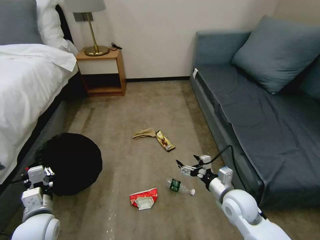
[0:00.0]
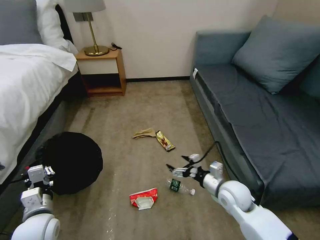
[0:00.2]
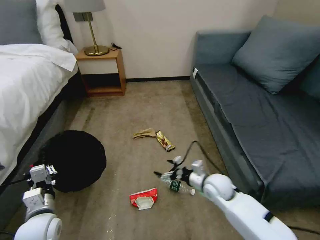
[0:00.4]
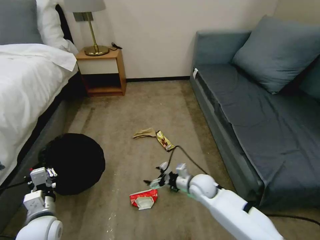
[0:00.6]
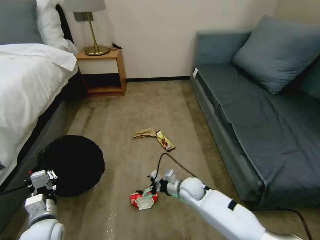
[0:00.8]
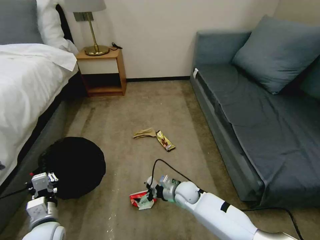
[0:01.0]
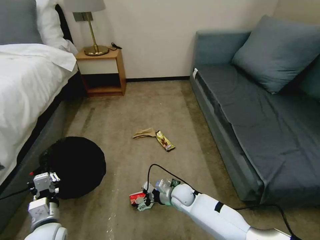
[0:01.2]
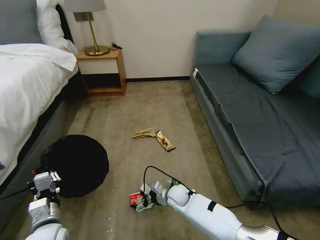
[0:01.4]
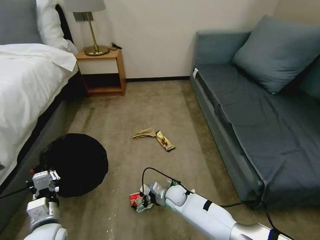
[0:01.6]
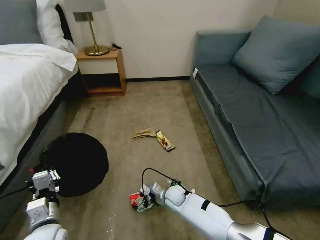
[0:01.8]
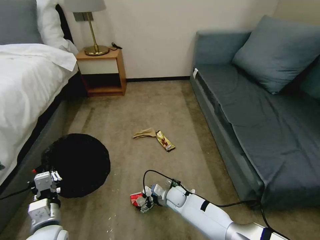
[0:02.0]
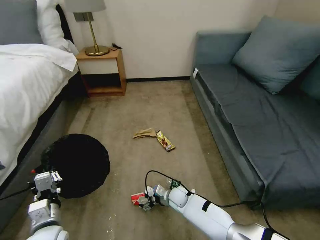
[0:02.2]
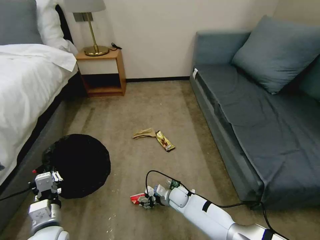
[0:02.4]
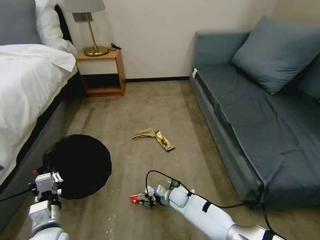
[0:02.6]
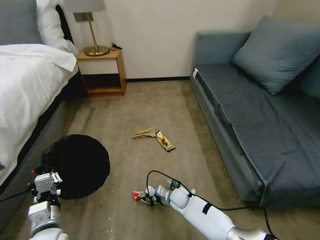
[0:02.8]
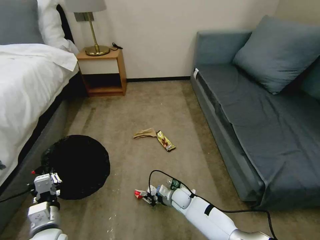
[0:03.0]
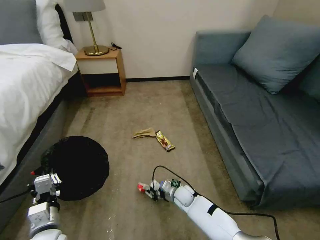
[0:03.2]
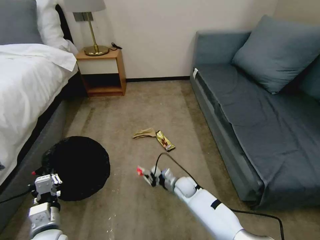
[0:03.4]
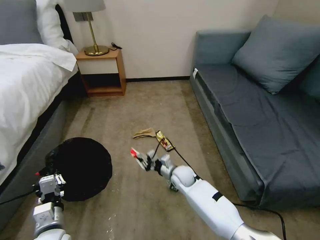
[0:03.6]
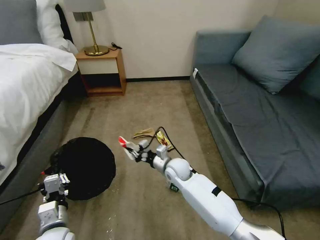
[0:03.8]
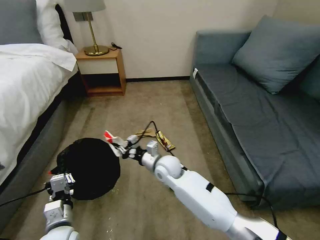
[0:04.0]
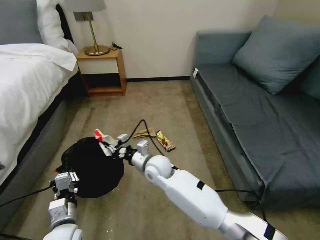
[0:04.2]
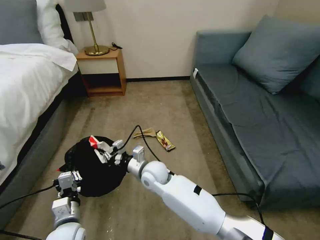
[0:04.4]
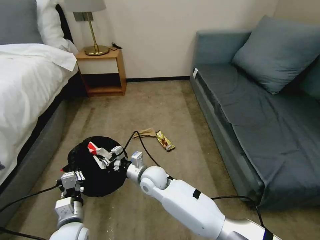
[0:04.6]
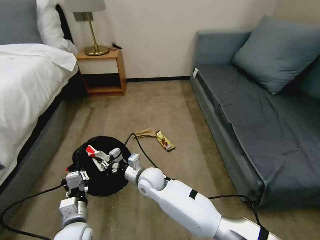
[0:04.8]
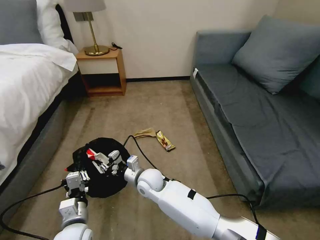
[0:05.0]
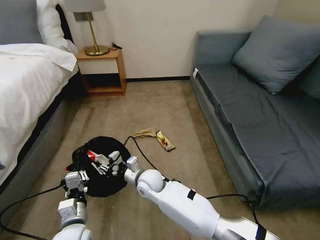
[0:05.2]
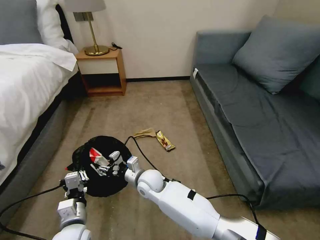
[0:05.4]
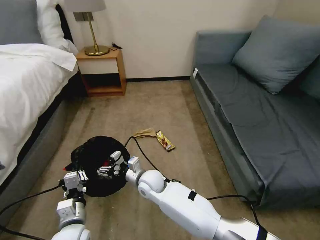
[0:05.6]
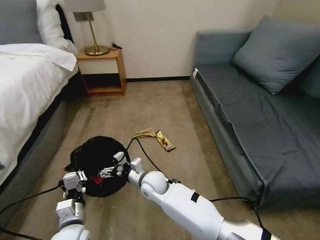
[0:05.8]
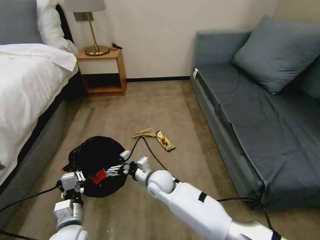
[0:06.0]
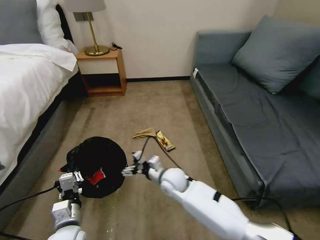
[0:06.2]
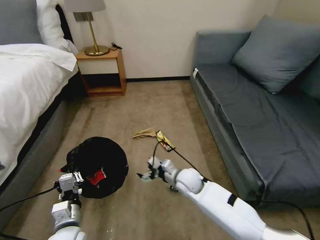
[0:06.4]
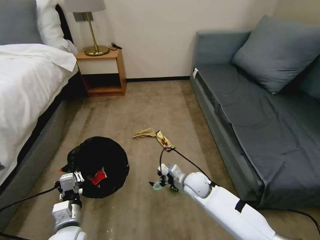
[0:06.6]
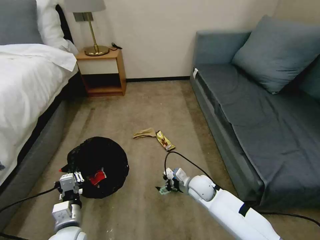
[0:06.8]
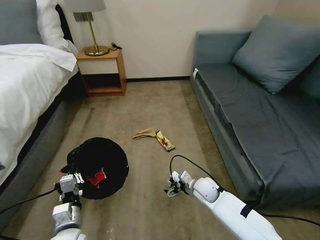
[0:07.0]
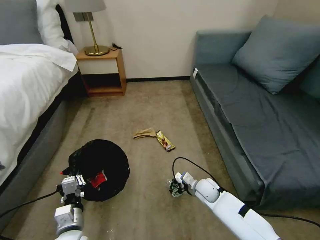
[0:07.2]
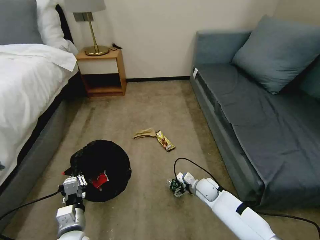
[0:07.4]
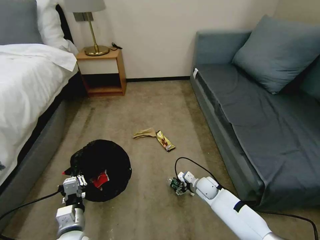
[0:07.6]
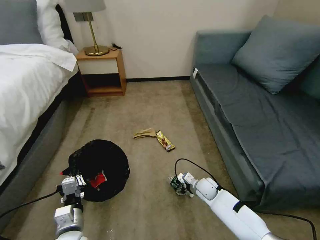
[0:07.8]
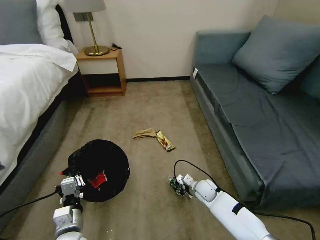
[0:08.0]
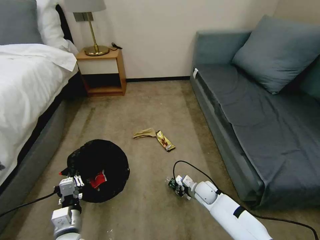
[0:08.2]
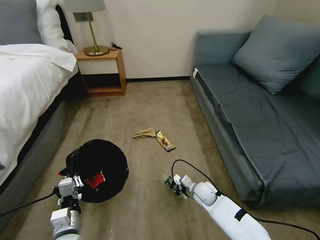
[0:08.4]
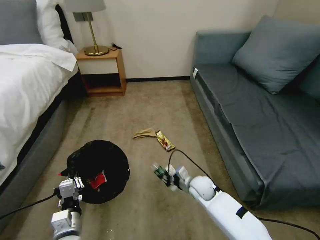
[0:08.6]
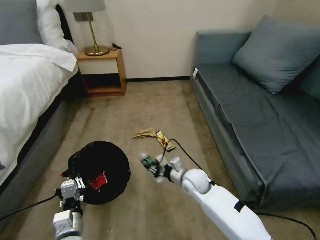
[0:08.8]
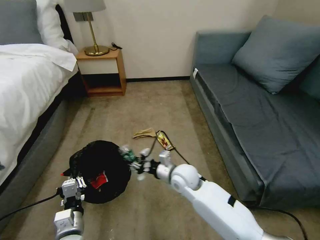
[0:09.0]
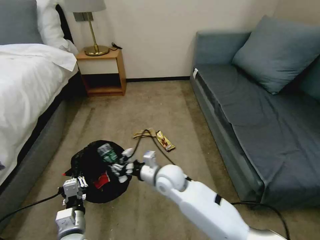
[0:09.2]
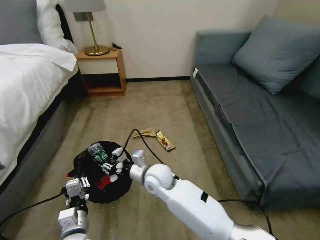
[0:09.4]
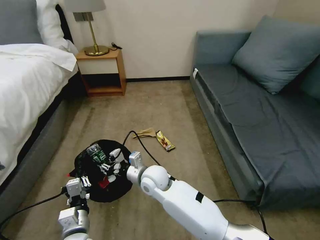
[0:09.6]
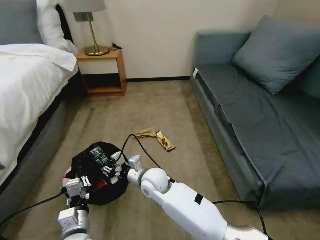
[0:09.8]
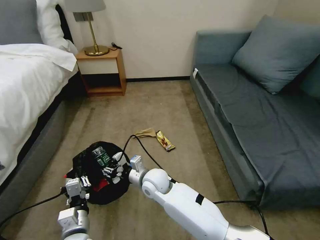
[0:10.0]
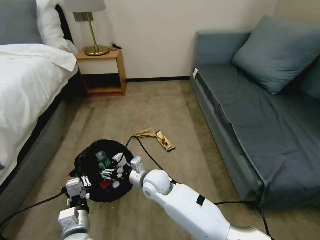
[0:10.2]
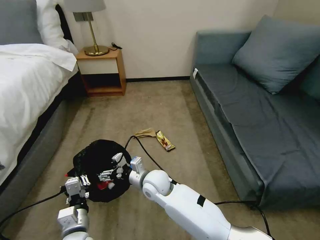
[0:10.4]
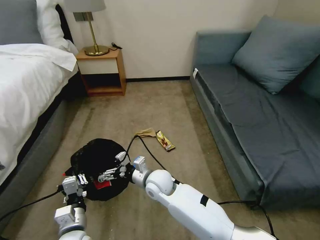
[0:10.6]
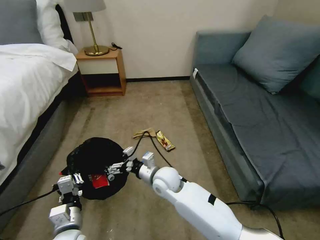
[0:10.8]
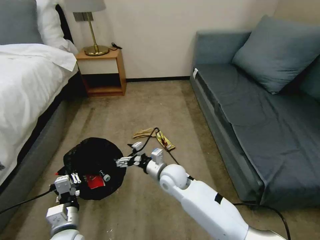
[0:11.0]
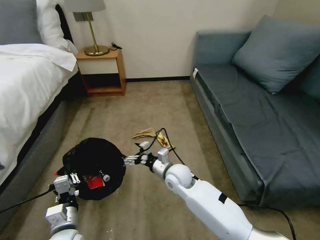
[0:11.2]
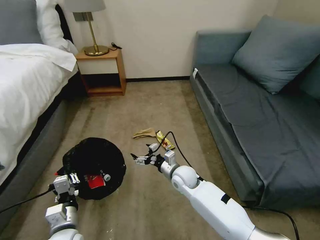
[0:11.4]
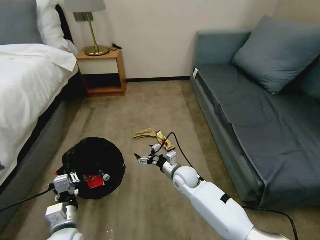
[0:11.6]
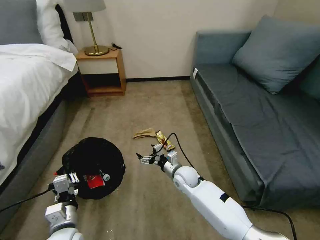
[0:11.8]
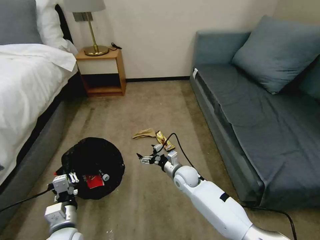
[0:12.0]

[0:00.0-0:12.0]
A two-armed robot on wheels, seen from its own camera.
Task of the whole recording: Pick up the trash bin, then pick up the garbage on the floor and place it into the trash bin.
0:00.0 to 0:01.6: The right gripper travels to the left, downward and forward by roughly 25 cm.
0:01.6 to 0:03.0: The right gripper closes its fingers.
0:03.0 to 0:04.4: The left gripper moves some 5 cm. The right gripper travels upward and to the left by about 25 cm.
0:04.4 to 0:06.0: The right gripper opens up.
0:06.0 to 0:07.6: The right gripper heads to the right and downward, covering about 25 cm.
0:07.6 to 0:09.0: The right gripper shifts roughly 20 cm upward and to the left, and closes up.
0:09.0 to 0:10.4: The right gripper shifts roughly 10 cm to the left, and opens its fingers.
0:10.4 to 0:12.0: The right gripper shifts roughly 15 cm to the right, downward and forward.

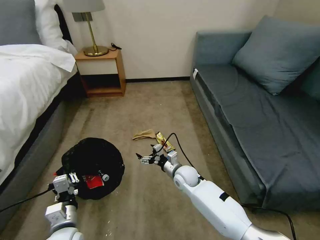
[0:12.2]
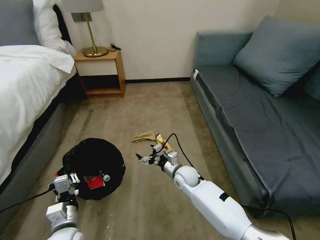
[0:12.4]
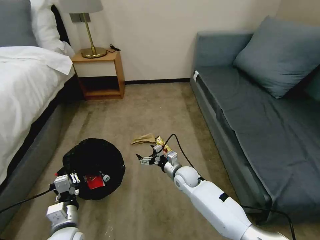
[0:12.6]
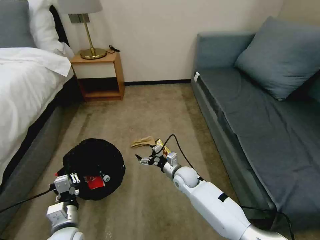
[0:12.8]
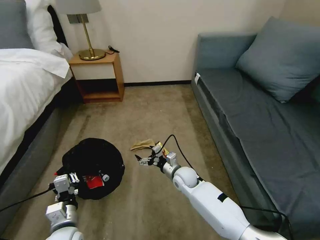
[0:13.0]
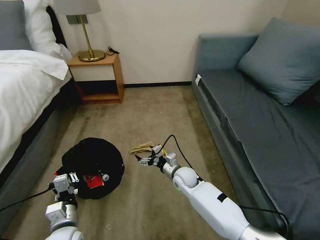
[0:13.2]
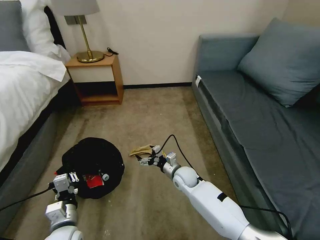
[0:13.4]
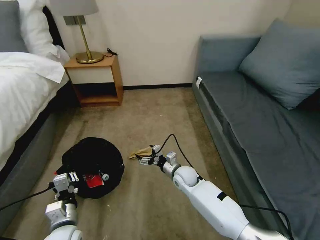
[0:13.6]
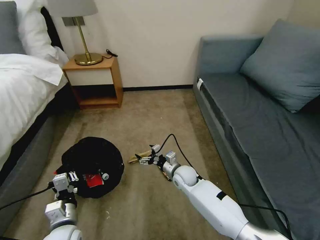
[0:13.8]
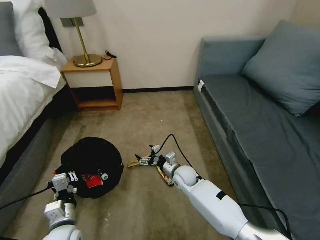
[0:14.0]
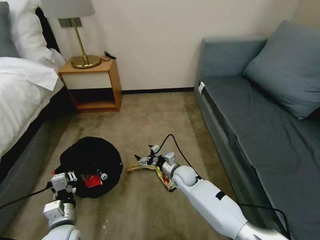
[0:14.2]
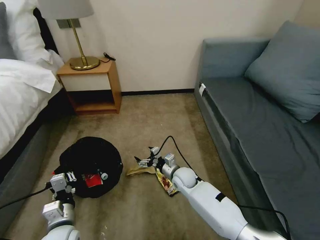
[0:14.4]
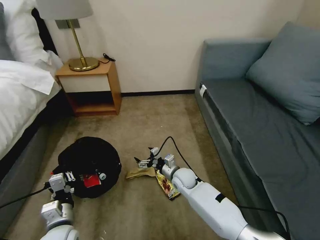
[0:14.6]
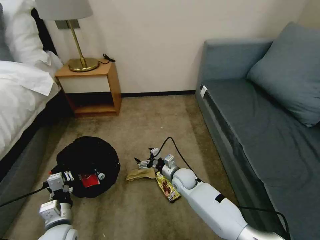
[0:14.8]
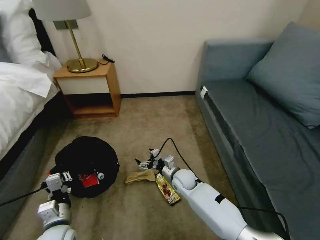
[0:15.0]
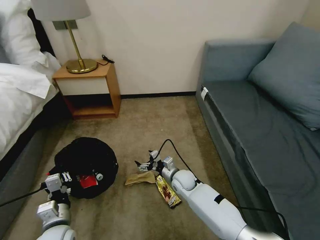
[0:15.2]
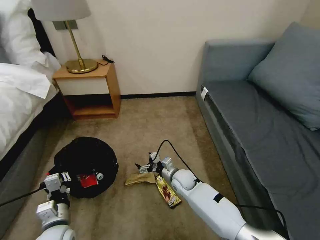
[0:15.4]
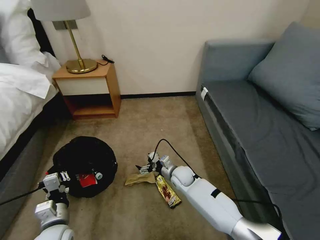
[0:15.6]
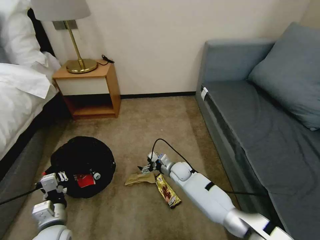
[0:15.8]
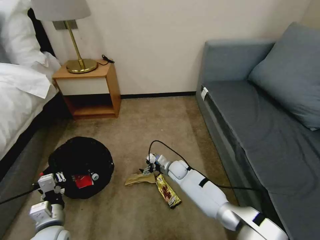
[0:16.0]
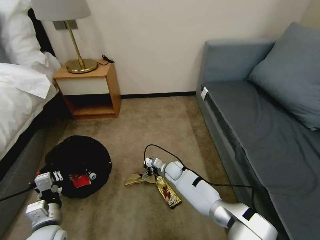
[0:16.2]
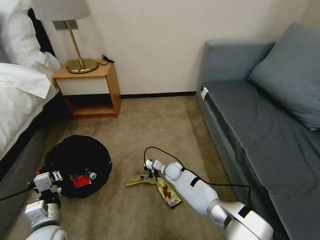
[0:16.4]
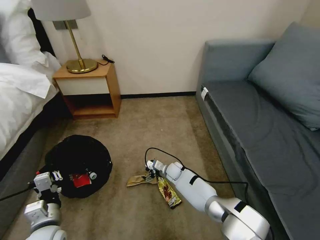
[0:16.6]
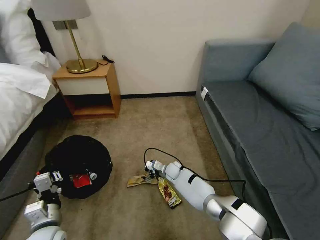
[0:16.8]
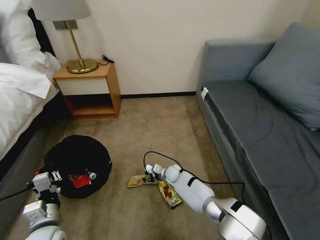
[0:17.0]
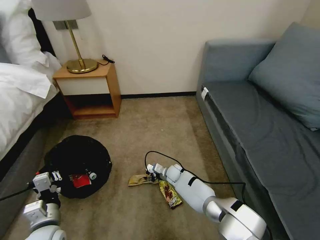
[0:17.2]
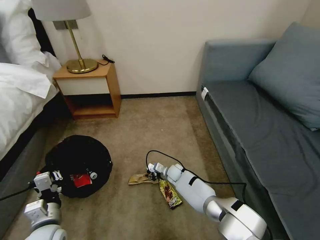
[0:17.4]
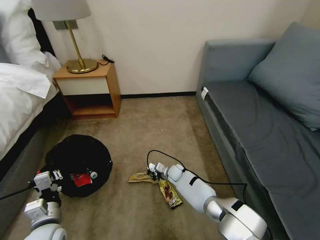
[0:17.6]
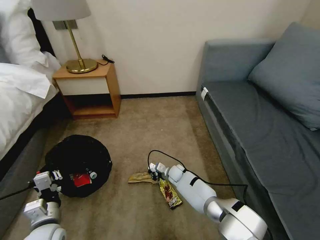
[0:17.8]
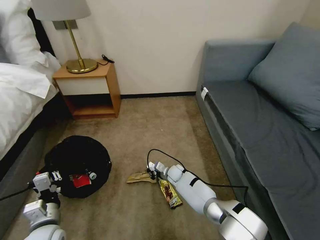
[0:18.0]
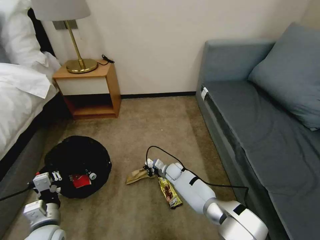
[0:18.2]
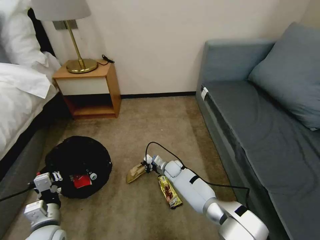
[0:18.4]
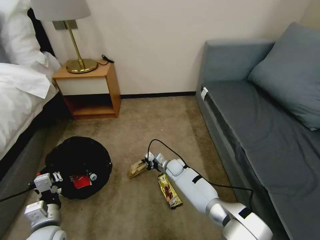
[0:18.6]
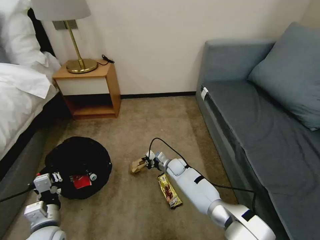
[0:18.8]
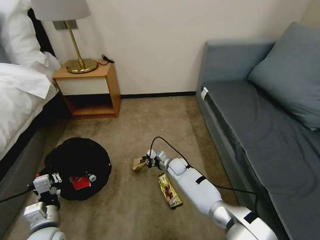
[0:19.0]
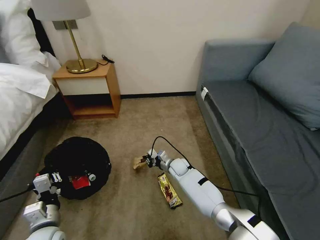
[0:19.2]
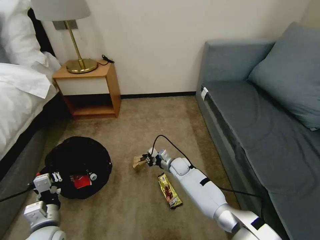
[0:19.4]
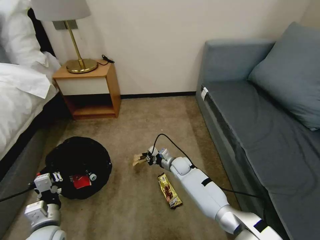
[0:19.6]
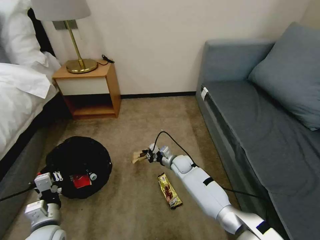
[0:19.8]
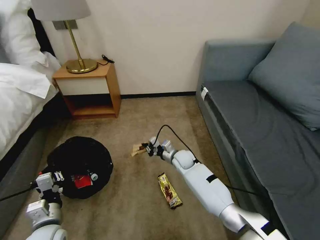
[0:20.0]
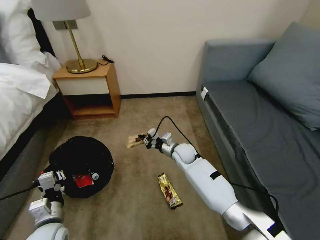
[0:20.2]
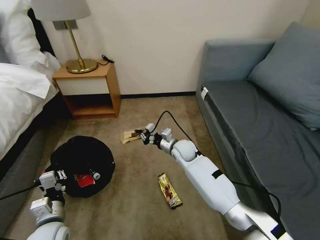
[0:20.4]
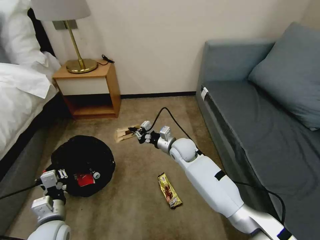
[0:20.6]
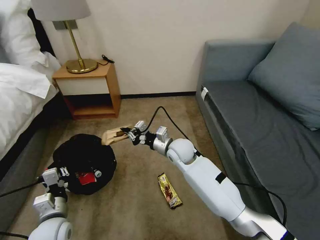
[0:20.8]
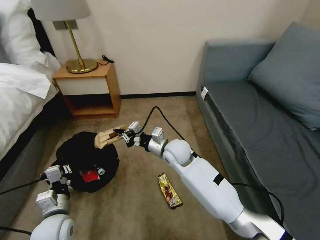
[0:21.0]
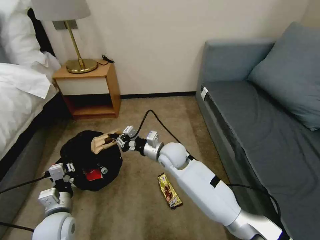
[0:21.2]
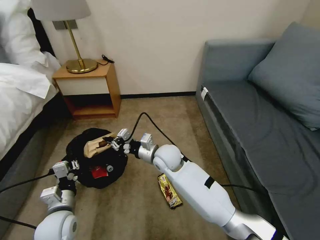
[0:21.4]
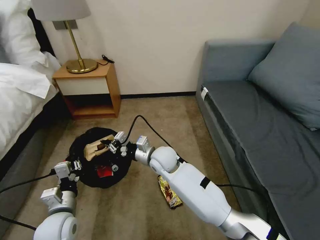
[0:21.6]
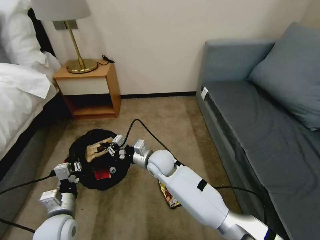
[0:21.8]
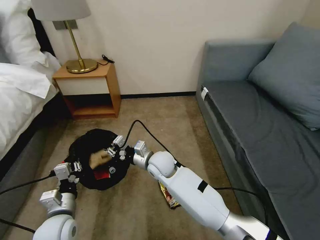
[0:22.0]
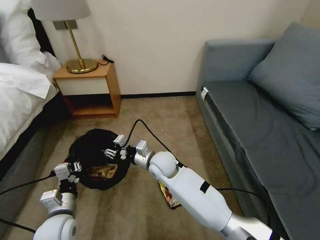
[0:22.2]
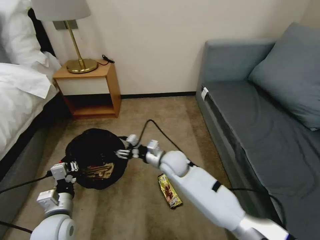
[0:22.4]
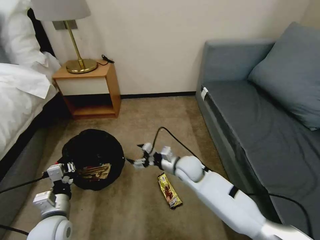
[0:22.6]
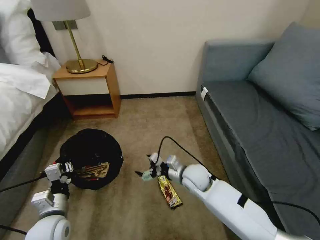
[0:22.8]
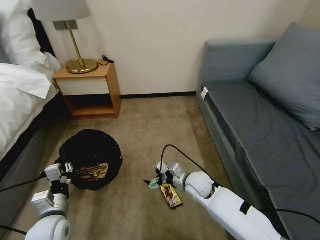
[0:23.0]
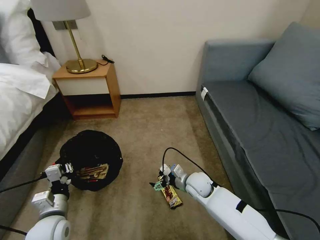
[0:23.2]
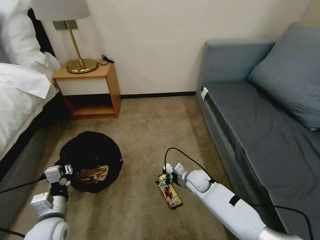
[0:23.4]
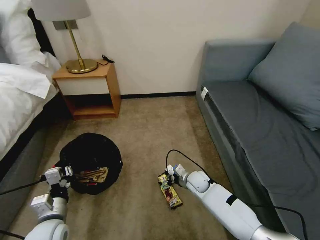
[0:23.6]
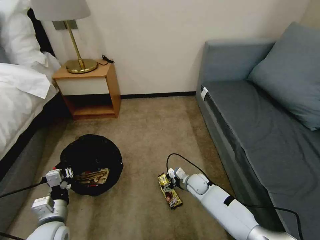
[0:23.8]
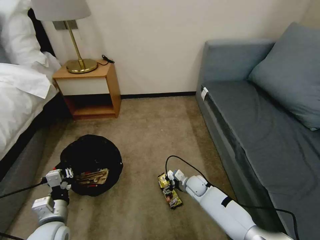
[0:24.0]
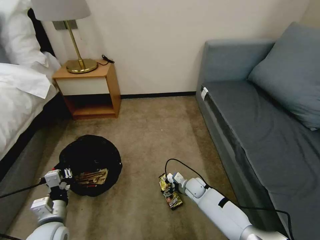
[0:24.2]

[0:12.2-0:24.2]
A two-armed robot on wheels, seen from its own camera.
Task of the whole recording: Pick up the trash bin, then pick up the garbage on the floor and place it into the trash bin.
0:15.2 to 0:16.6: The right gripper is displaced forward and downward by roughly 10 cm.
0:16.6 to 0:18.2: The right gripper closes up.
0:18.2 to 0:19.8: The right gripper shifts roughly 5 cm upward.
0:19.8 to 0:21.2: The right gripper moves upward, some 15 cm.
0:21.2 to 0:22.6: The right gripper moves to the right and downward, roughly 10 cm, and opens up.
0:22.6 to 0:24.2: The right gripper is displaced downward by approximately 20 cm.
